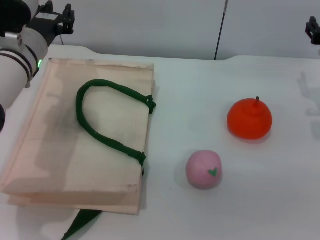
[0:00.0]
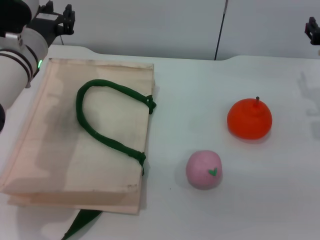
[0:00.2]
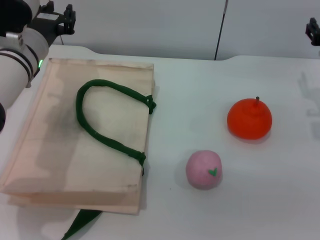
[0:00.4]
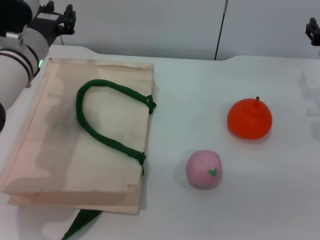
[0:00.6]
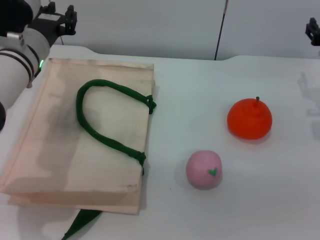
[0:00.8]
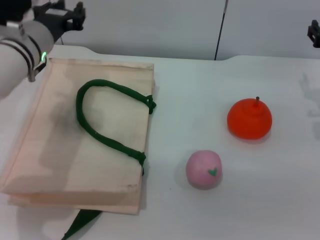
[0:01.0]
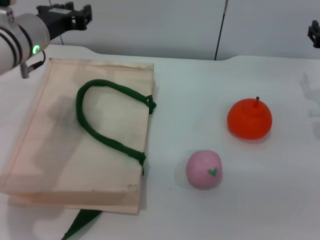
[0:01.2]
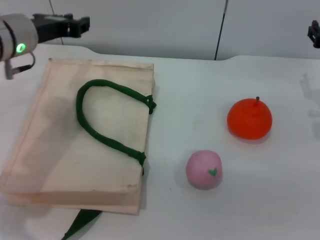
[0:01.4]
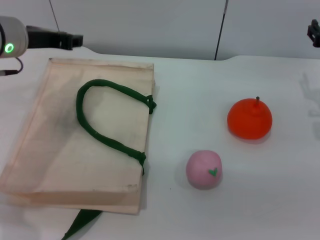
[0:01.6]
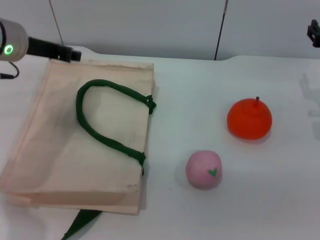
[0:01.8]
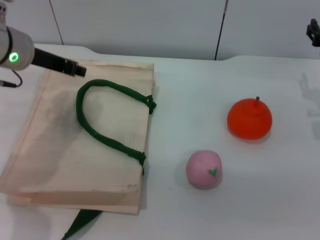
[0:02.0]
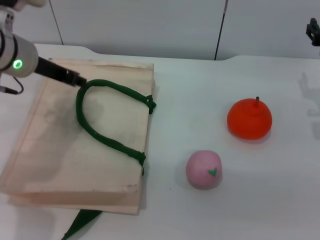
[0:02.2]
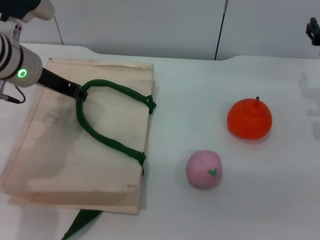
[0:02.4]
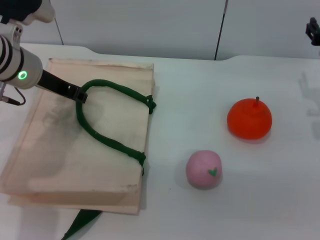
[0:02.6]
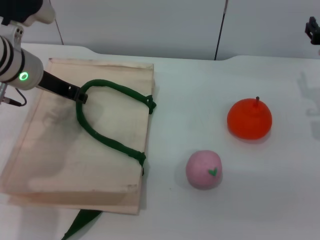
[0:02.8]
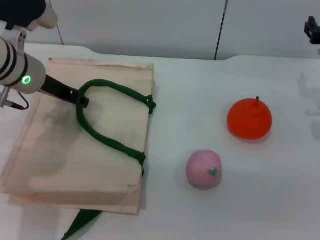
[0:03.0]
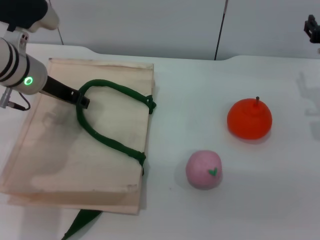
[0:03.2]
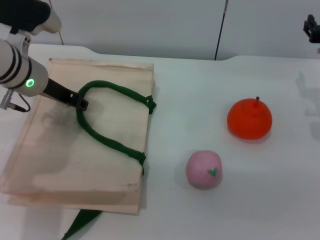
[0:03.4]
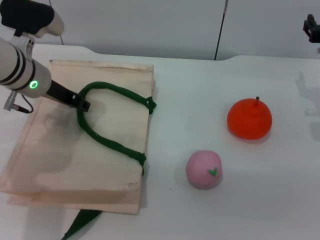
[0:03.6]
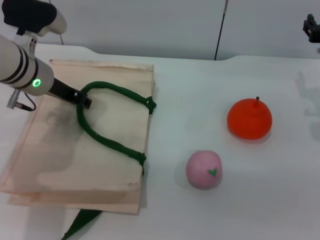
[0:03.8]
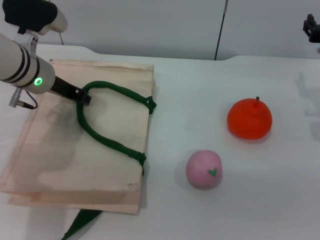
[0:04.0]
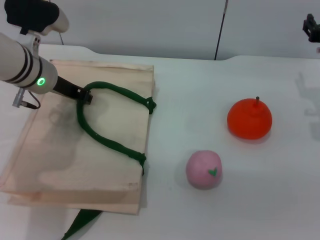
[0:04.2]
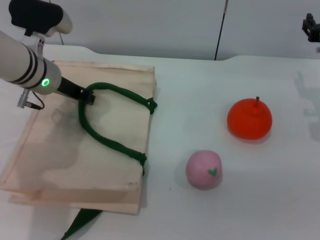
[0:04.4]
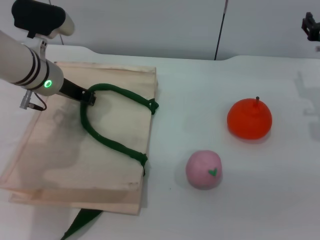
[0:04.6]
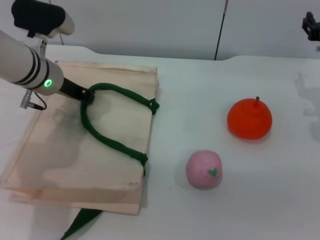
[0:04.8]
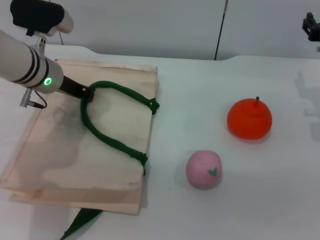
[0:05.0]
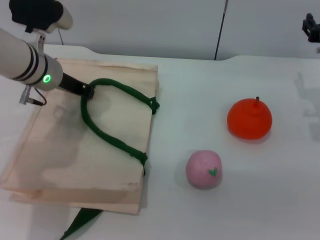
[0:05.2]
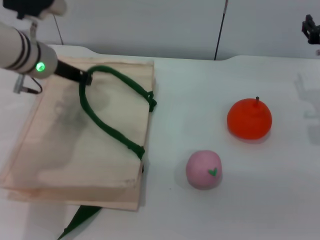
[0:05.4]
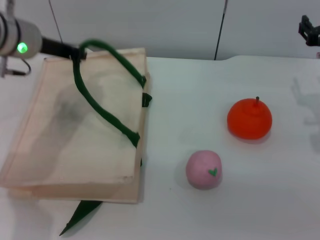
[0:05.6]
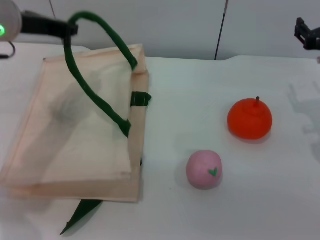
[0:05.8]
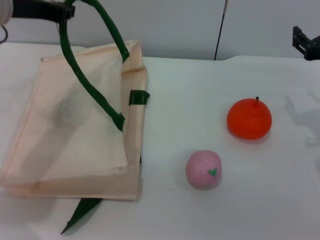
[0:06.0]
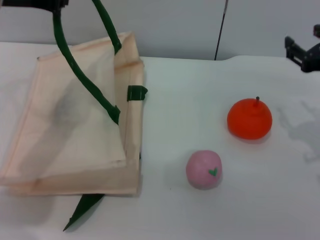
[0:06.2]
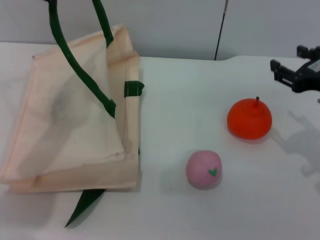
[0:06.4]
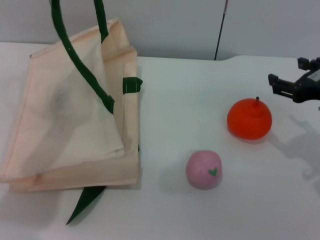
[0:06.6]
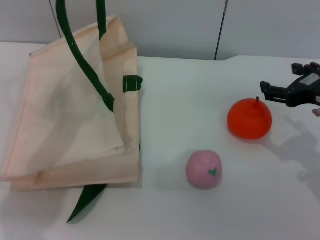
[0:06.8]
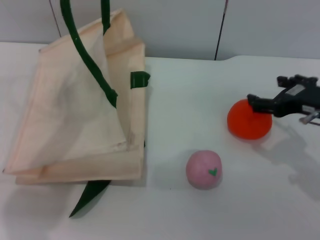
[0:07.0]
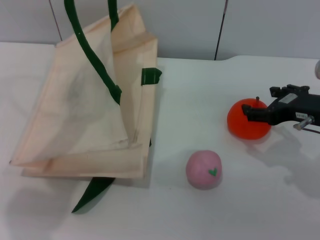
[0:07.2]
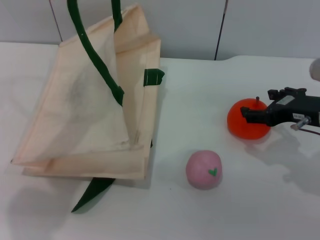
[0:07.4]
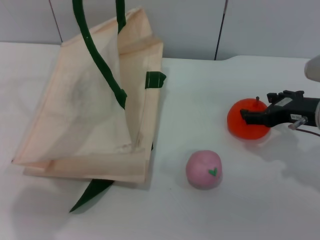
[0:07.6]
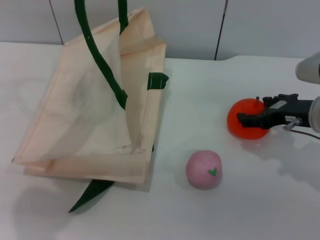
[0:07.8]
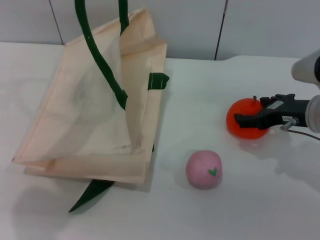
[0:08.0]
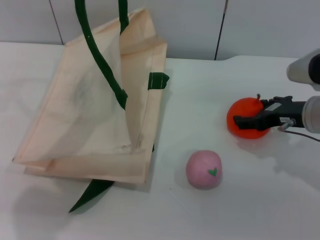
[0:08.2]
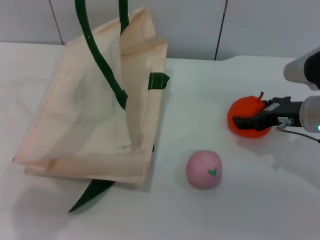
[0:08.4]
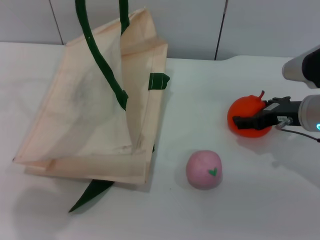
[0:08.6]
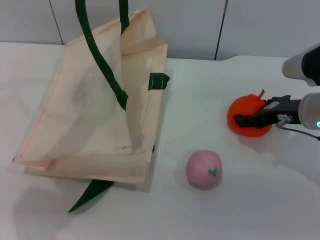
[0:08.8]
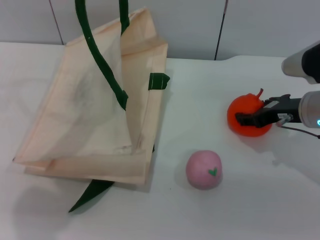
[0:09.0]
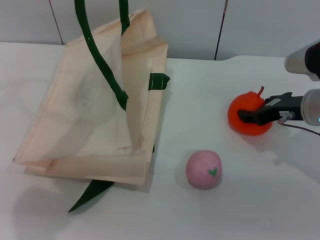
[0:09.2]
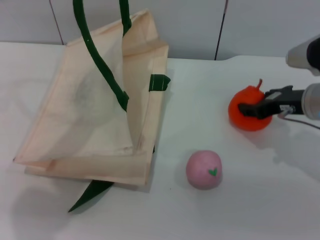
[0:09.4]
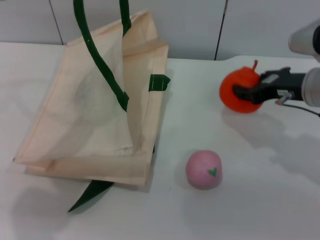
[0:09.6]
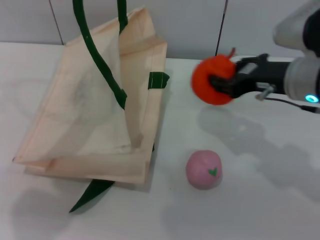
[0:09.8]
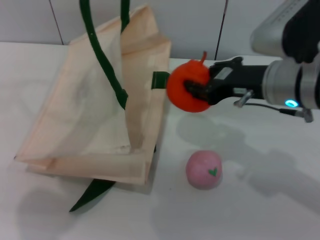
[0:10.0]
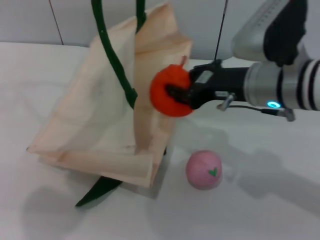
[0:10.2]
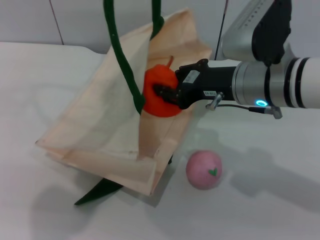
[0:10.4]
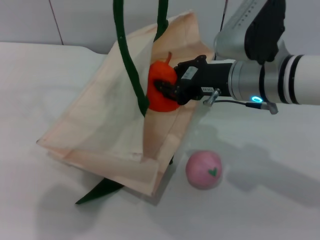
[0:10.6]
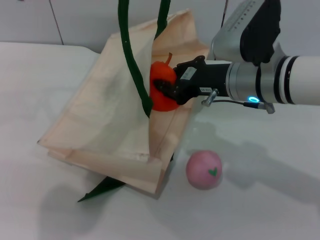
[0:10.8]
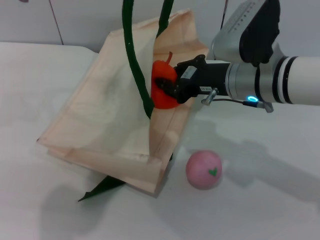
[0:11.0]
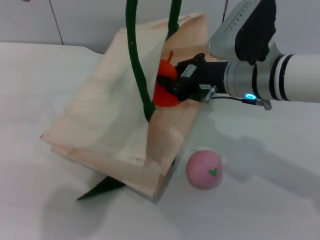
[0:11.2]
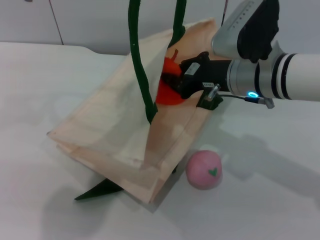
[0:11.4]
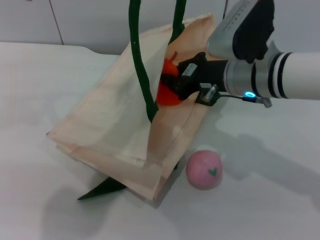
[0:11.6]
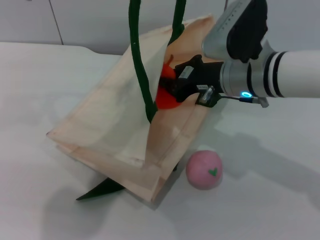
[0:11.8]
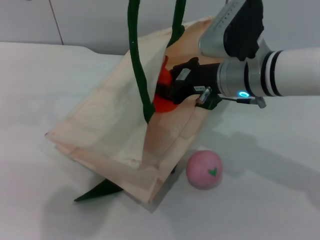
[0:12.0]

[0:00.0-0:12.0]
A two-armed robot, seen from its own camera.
Task of the whole recording: pick up the orange and peach from the table and place it in the white handbag.
Step, 0:00.0 to 0:05.4: Lift the woven bag with the left gripper to open it.
Step, 0:05.6 to 0:09.8: Pick up the orange with the right gripper.
0:00.0 to 0:01.6: The left gripper is displaced upward by some 5 cm.
0:03.0 to 0:04.4: The grippers stay close to where they were, moving slightly.
0:04.4 to 0:06.0: The right gripper goes about 5 cm backward. Meanwhile the left gripper goes approximately 10 cm upward.
0:06.0 to 0:07.6: The left gripper shifts roughly 5 cm upward.
0:07.6 to 0:09.0: The grippers move only a little.
0:09.0 to 0:10.4: The right gripper moves to the left and upward, some 10 cm, and closes up.

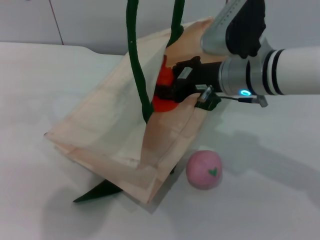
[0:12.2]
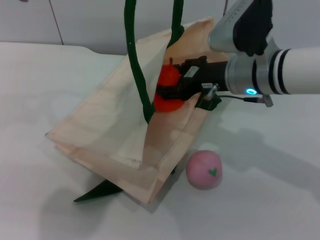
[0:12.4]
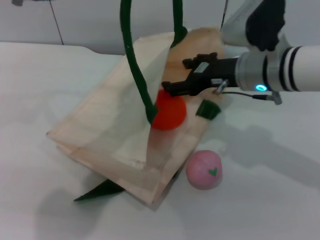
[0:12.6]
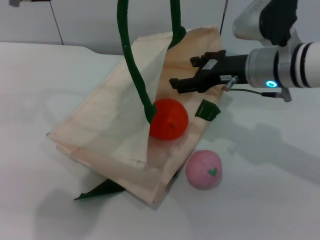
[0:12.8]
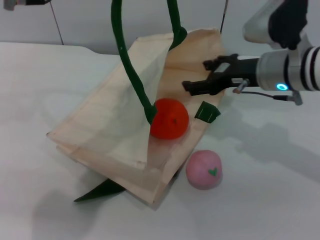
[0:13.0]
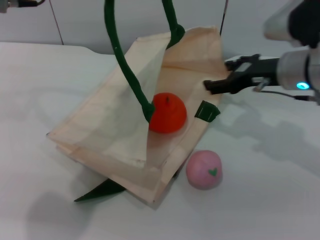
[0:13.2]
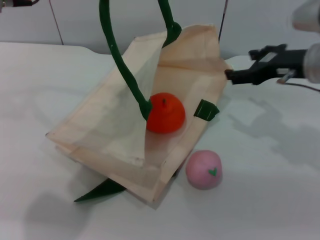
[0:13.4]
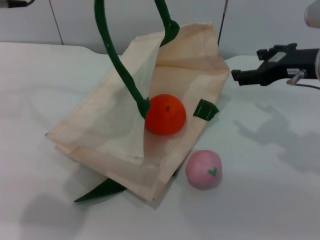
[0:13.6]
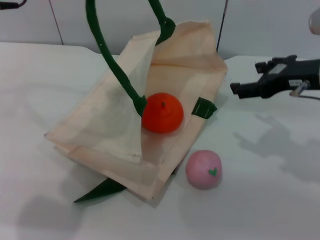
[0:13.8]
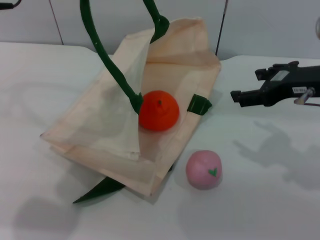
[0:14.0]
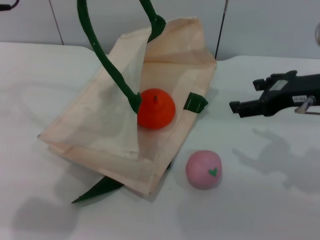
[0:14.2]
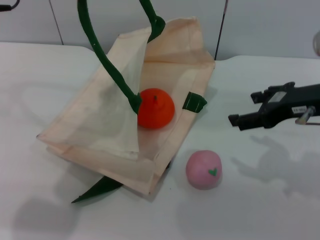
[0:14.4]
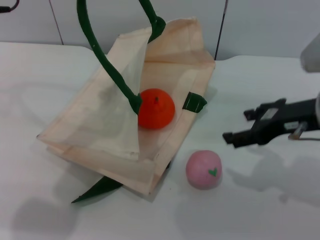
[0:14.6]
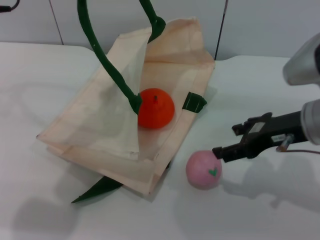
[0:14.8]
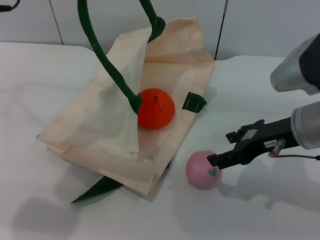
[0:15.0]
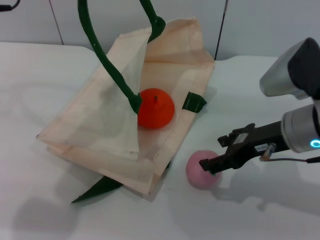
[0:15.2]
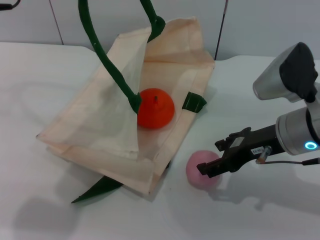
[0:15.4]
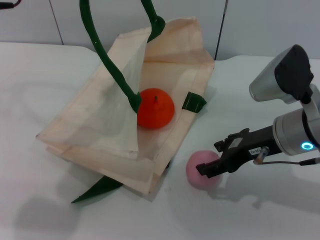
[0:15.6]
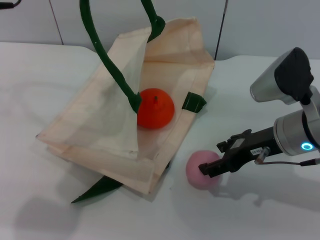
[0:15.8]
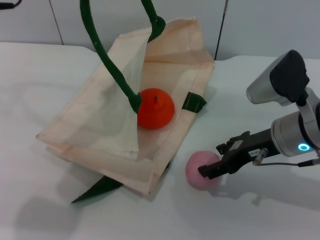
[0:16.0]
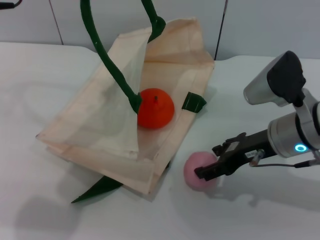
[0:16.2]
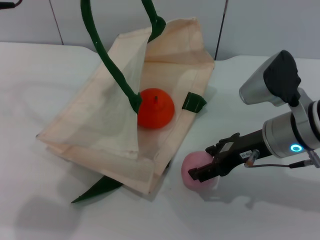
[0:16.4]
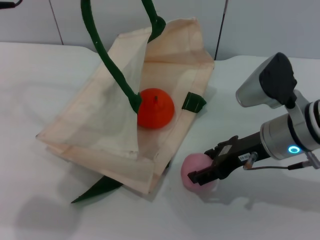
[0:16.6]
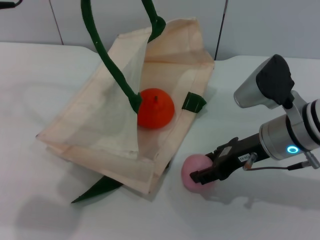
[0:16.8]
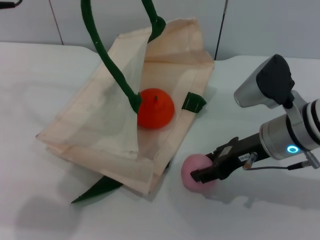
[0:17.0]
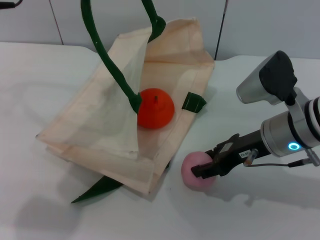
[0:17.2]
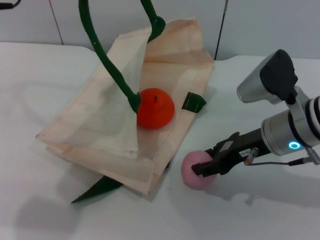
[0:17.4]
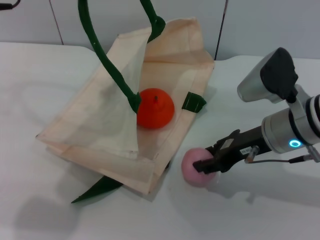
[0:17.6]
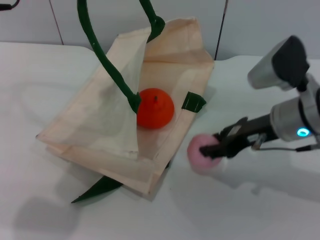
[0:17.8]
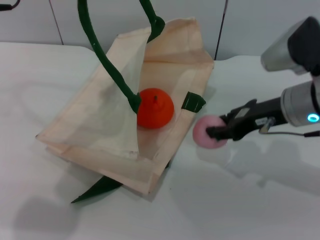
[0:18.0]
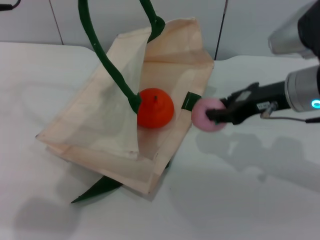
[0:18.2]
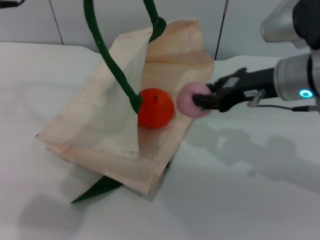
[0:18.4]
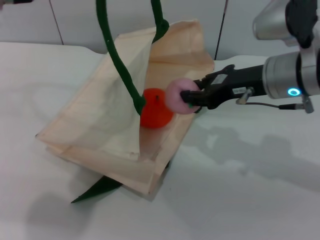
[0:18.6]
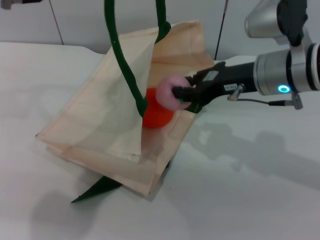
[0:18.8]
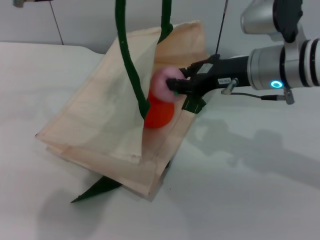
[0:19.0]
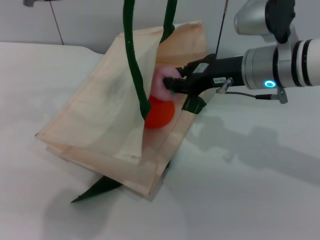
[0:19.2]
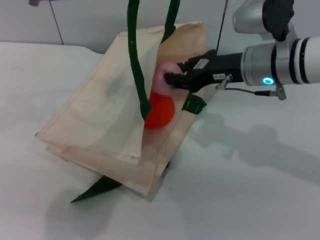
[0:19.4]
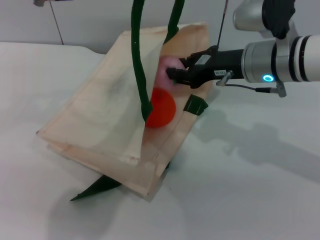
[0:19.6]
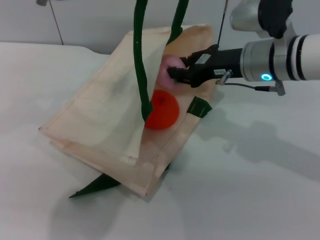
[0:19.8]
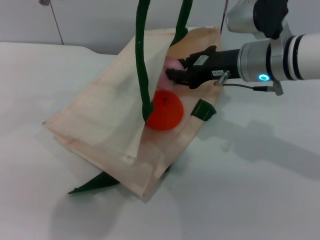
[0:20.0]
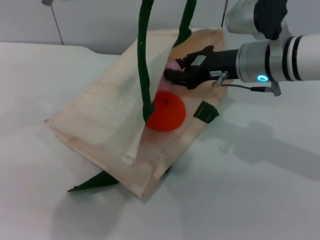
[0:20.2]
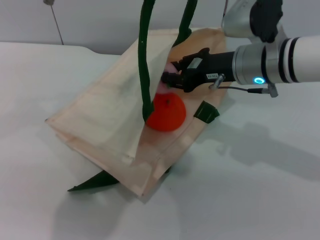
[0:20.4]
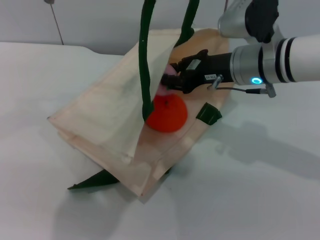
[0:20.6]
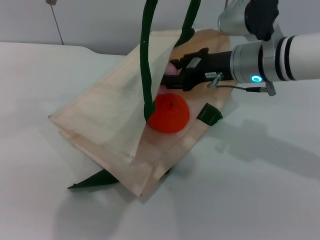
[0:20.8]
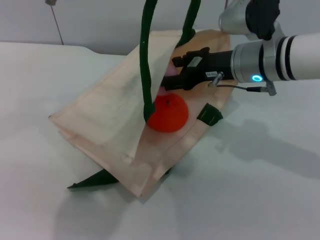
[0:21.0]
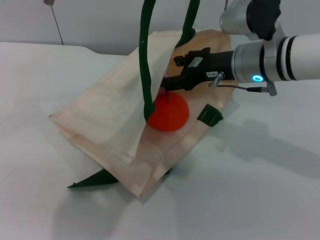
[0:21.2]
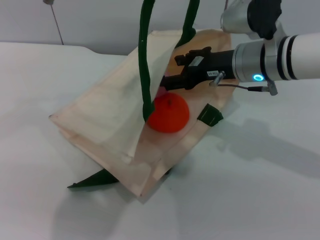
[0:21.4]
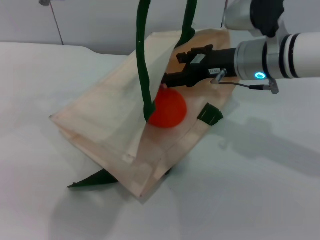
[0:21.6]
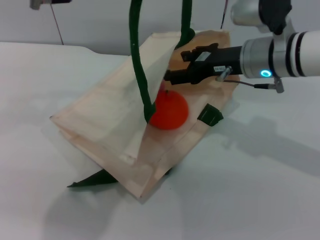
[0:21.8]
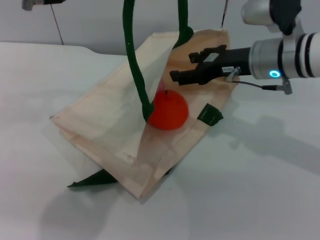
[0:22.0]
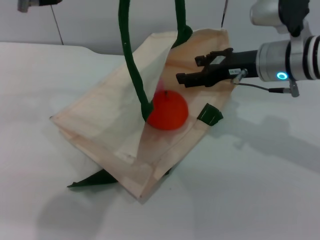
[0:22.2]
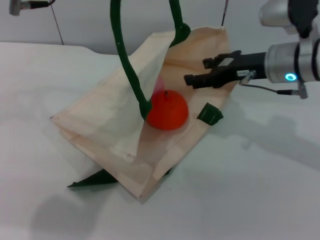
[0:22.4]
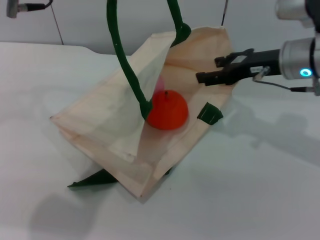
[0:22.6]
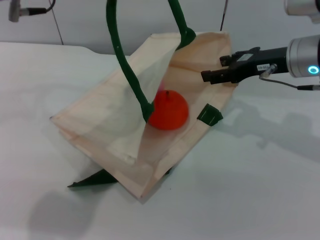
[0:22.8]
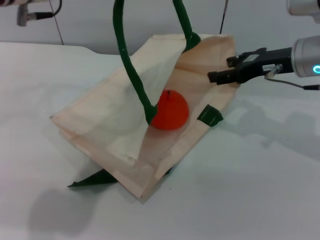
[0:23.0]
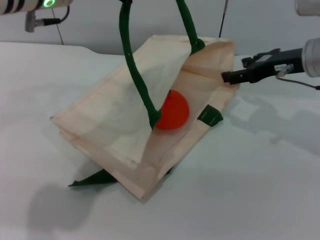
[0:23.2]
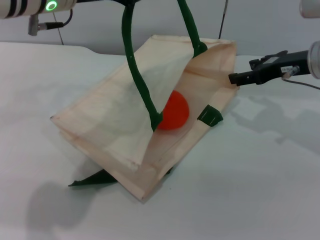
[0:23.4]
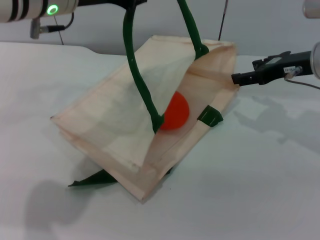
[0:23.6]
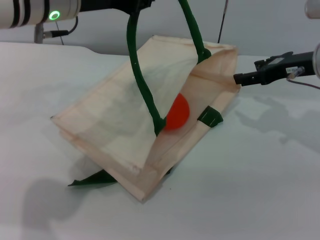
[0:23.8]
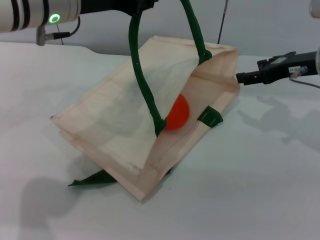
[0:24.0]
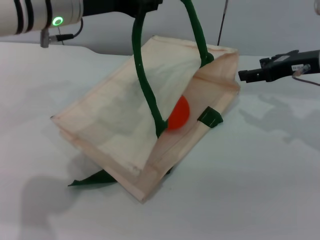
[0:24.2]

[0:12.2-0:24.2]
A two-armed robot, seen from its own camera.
Task of the whole recording: pick up the orange and peach from the table and place it in the white handbag.
Step, 0:13.8 to 0:18.0: Pick up the peach with the right gripper.
Step, 0:18.2 to 0:22.4: Place the peach into the woven bag with the right gripper.
0:12.2 to 0:13.8: The left gripper shifts by approximately 5 cm, while the right gripper heads to the right, covering approximately 10 cm, and opens up.
0:13.8 to 0:15.2: The right gripper changes place by some 5 cm.
0:15.2 to 0:16.6: The grippers move only a little.
0:16.6 to 0:18.2: The right gripper ends up about 5 cm from where it was, and closes up.
0:18.2 to 0:19.8: The left gripper goes about 5 cm to the right. Meanwhile the right gripper changes place by about 5 cm.
0:19.8 to 0:21.2: The right gripper opens its fingers.
0:21.2 to 0:22.6: The right gripper goes some 5 cm to the right.
0:22.6 to 0:24.2: The right gripper is displaced to the right by some 5 cm. Meanwhile the left gripper shifts approximately 5 cm downward.
